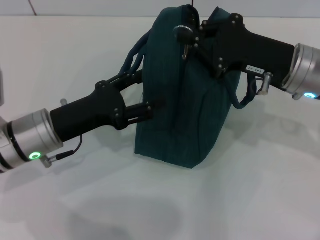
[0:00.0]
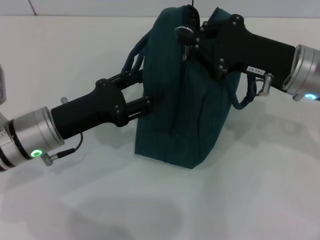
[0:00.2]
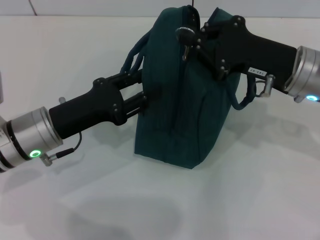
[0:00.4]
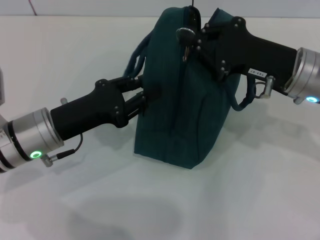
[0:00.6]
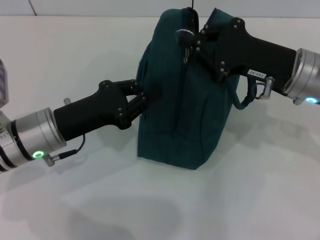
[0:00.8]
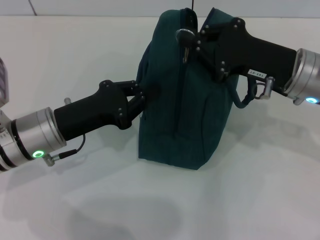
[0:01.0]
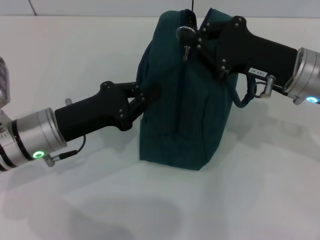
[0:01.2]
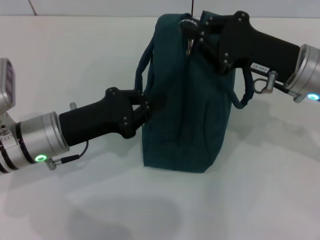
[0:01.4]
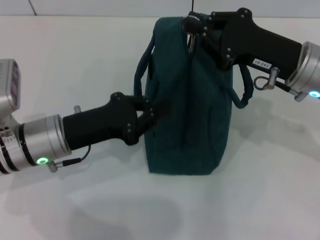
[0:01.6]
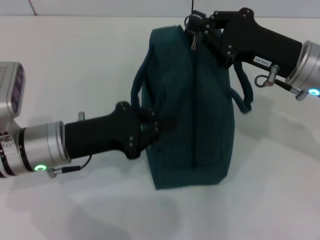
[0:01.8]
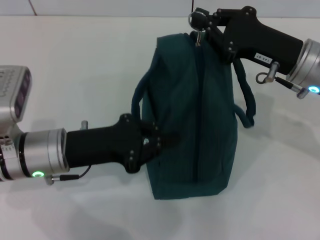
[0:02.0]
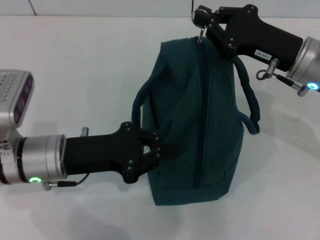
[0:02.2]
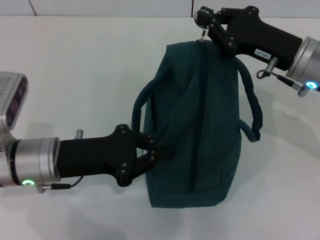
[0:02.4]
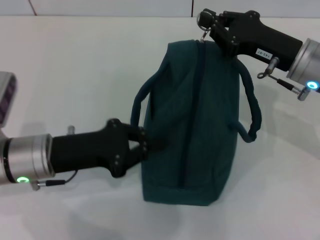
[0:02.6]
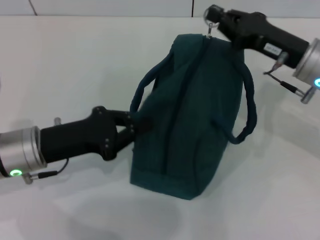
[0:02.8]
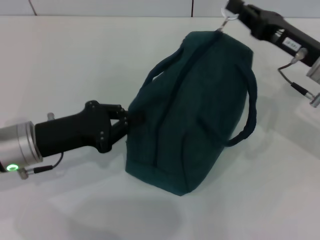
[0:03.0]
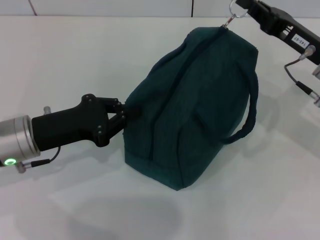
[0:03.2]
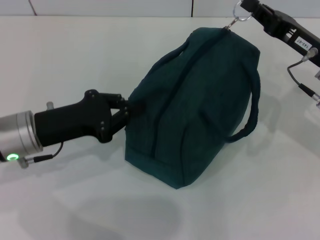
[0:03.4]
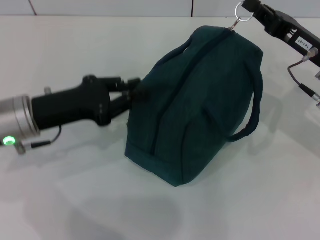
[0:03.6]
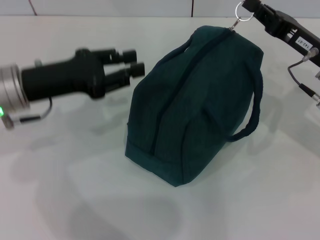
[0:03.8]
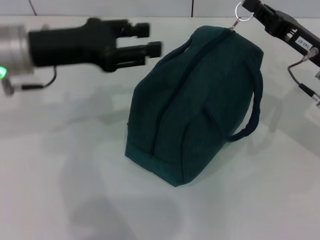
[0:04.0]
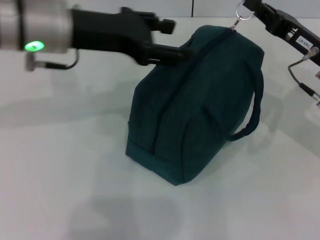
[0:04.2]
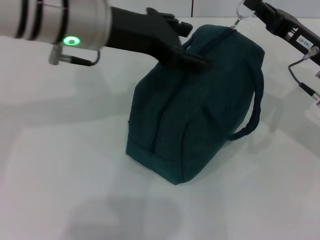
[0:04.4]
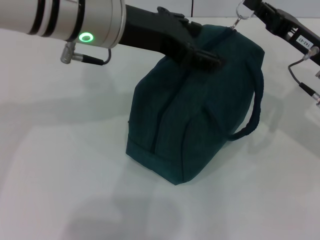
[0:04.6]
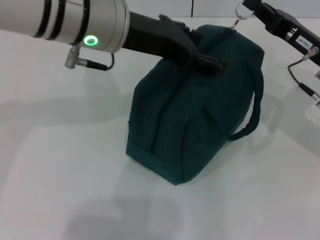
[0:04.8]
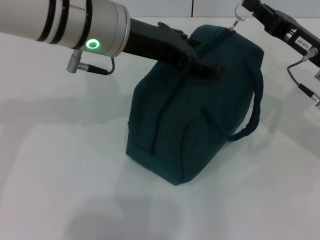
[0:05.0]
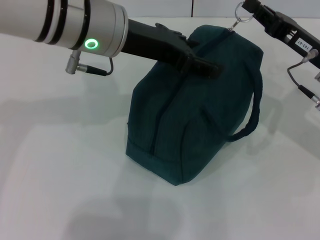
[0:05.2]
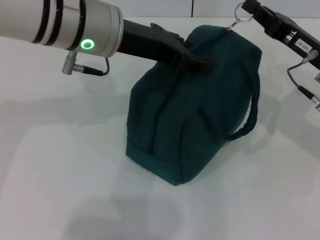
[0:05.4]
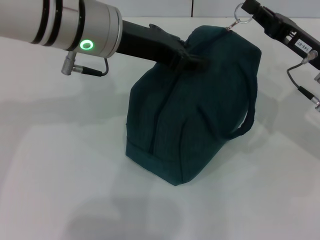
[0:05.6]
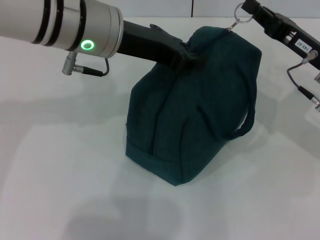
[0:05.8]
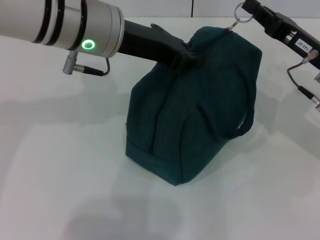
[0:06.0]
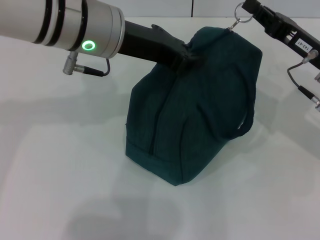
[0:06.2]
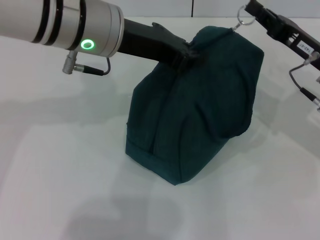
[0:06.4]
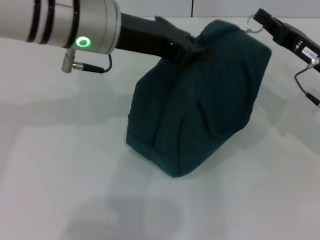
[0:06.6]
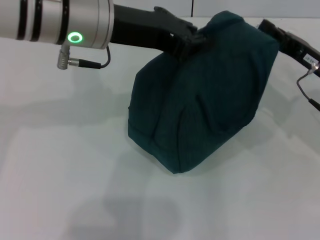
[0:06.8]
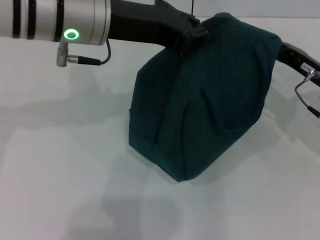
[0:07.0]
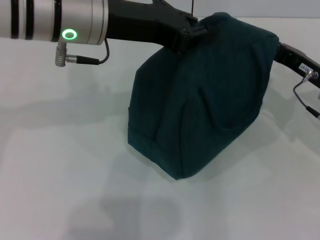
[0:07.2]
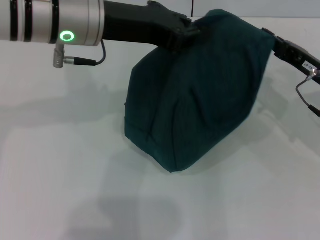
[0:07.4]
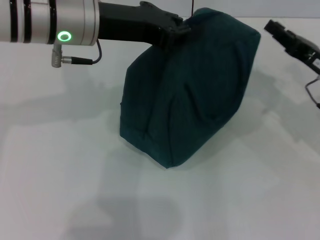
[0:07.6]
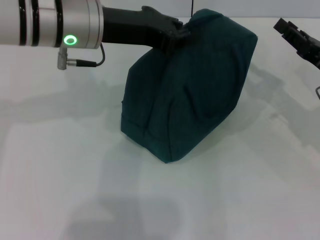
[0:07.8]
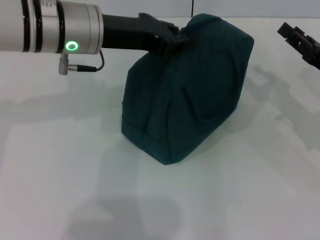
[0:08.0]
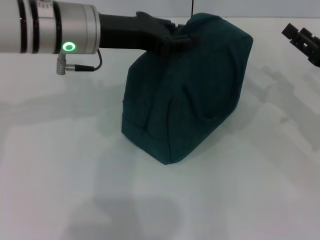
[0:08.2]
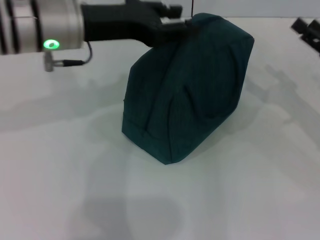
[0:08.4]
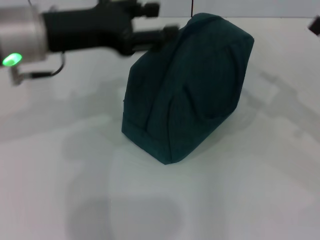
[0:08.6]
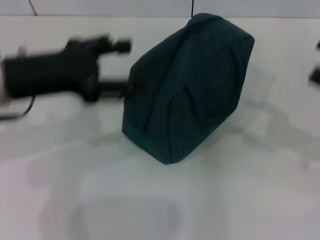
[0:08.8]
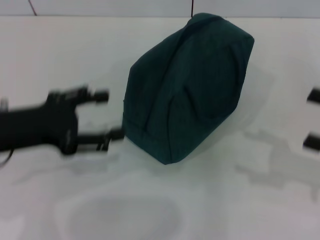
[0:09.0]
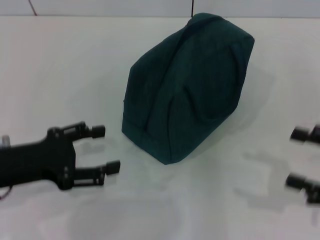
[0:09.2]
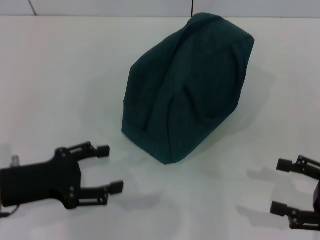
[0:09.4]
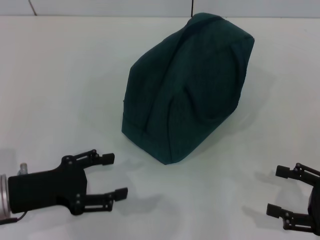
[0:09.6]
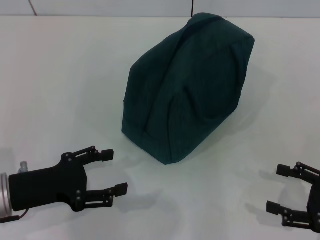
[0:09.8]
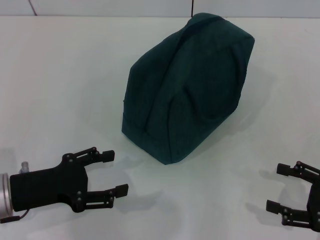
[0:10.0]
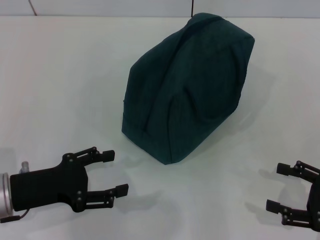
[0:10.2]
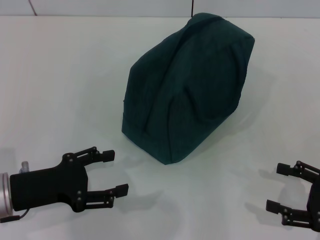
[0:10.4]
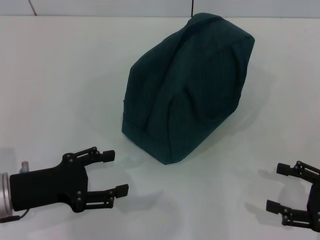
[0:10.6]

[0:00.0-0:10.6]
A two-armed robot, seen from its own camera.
Step, 0:00.0 to 0:07.8: Zip up the lunch bag with your right hand.
Step, 0:08.0 to 0:08.6: Hold the lunch bag with your left hand.
0:00.0 to 0:01.6: The left gripper closes its fingers.
0:03.0 to 0:04.6: The left gripper goes about 25 cm upward, to the right and forward, and opens.
0:04.6 to 0:06.0: The left gripper closes up.
0:07.6 to 0:09.0: The left gripper travels to the left, backward and downward by about 20 cm, and opens its fingers. The right gripper goes about 15 cm backward and to the right, and opens its fingers.
0:09.0 to 0:10.6: The two grippers go roughly 10 cm downward.
